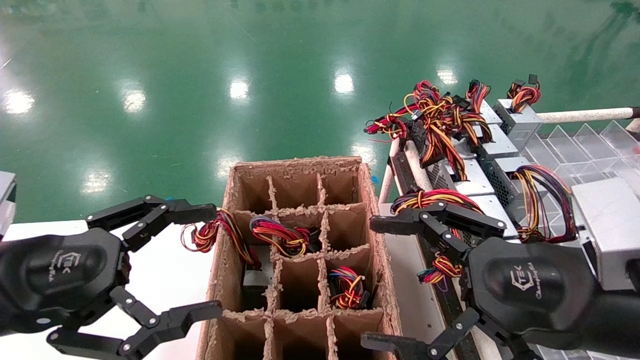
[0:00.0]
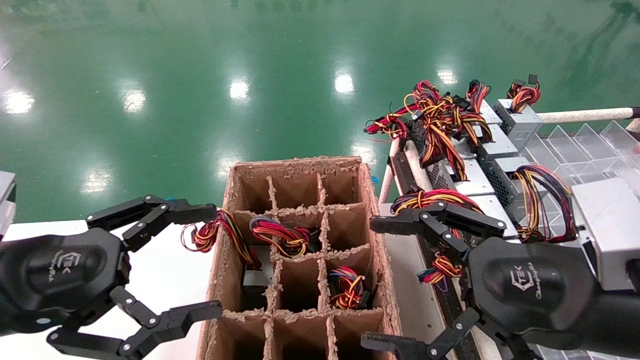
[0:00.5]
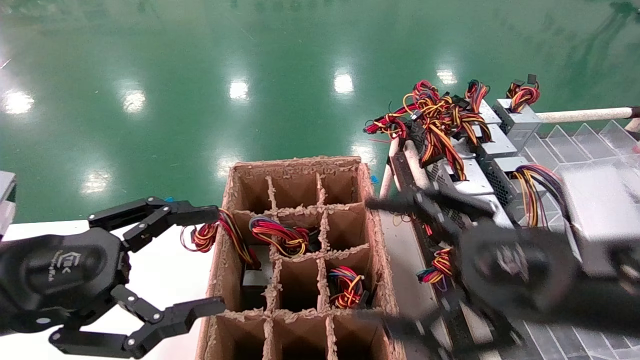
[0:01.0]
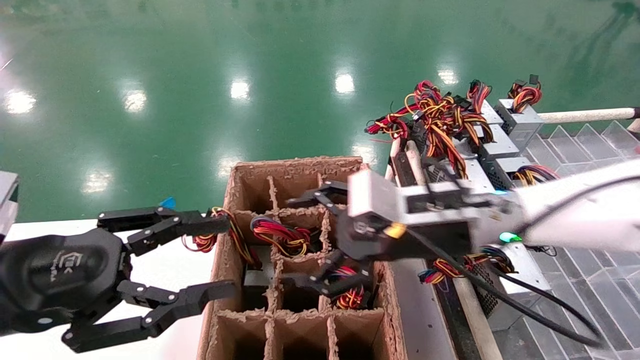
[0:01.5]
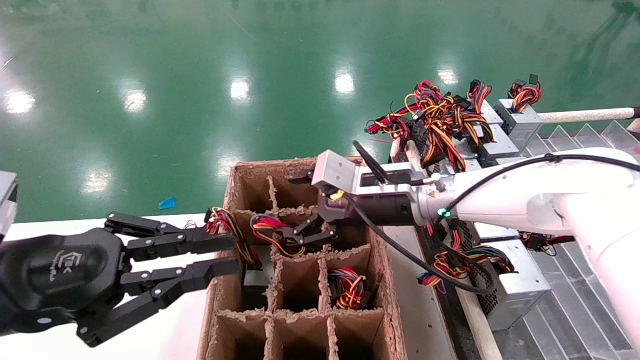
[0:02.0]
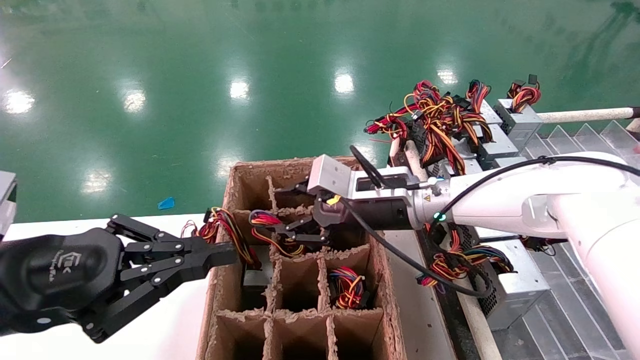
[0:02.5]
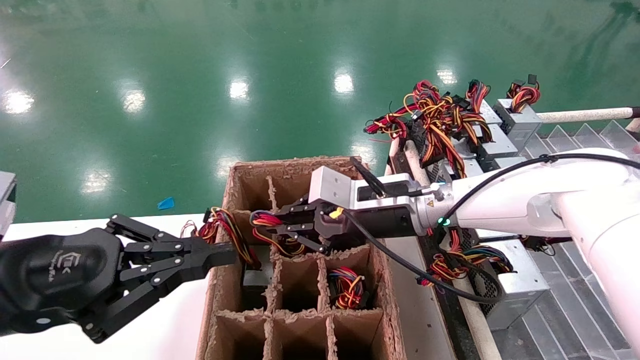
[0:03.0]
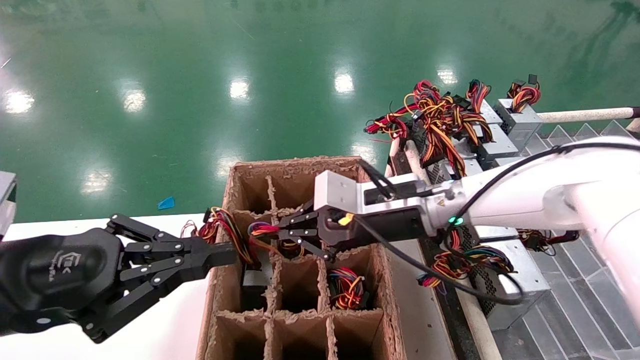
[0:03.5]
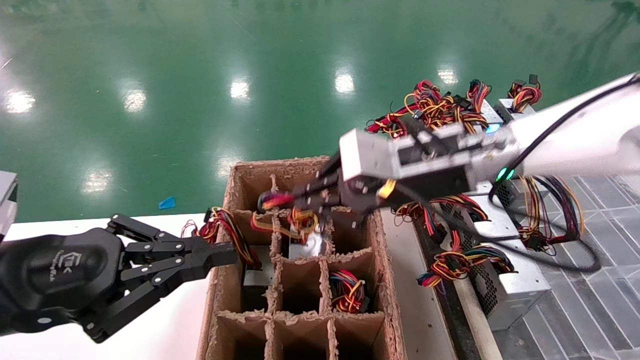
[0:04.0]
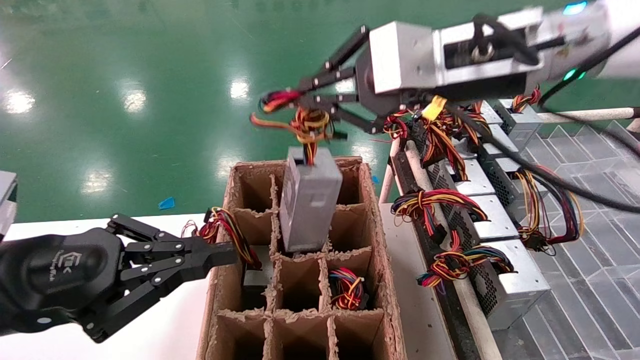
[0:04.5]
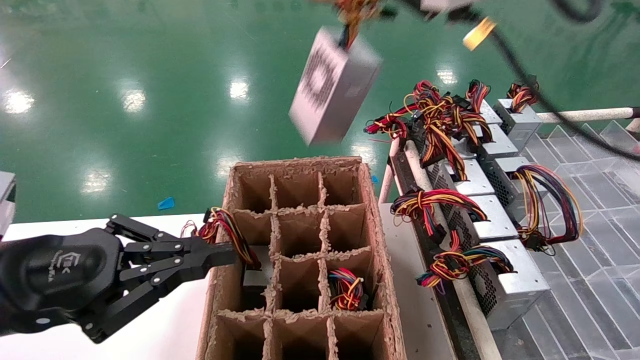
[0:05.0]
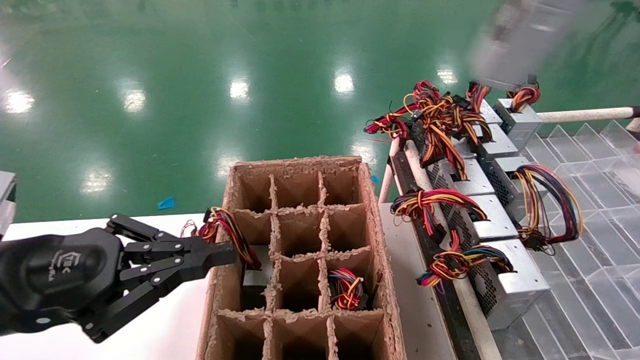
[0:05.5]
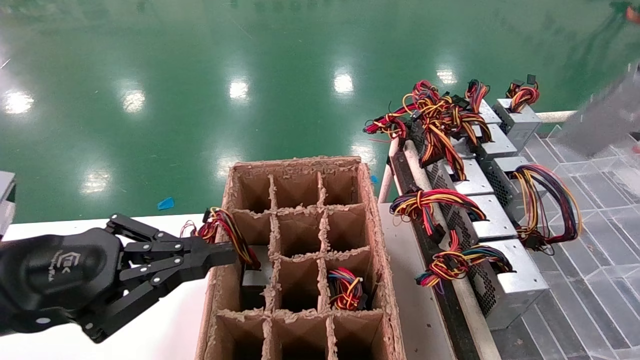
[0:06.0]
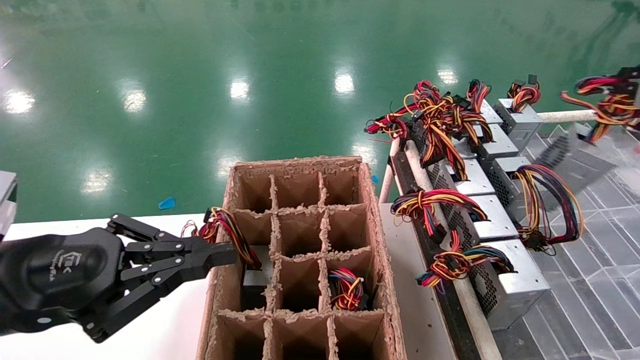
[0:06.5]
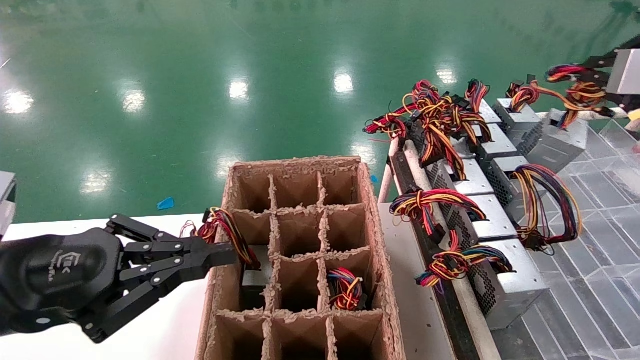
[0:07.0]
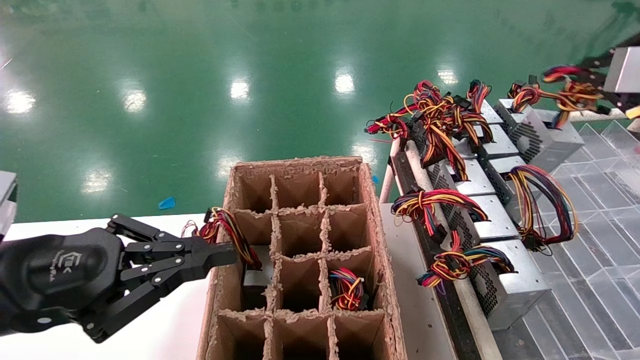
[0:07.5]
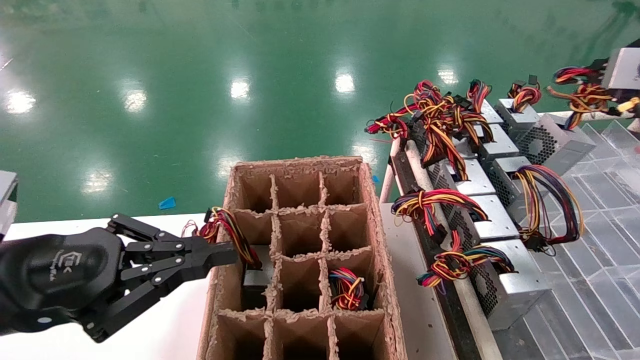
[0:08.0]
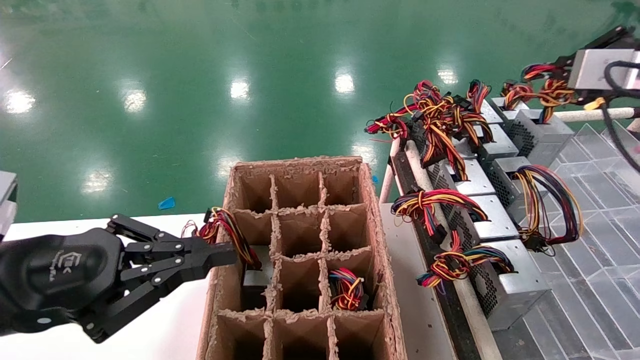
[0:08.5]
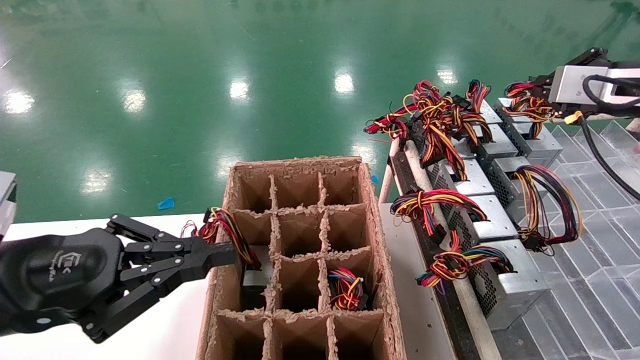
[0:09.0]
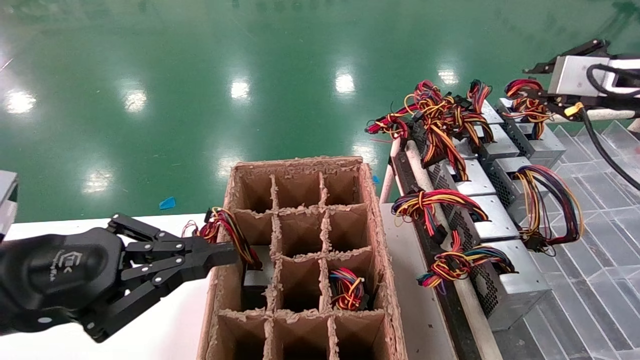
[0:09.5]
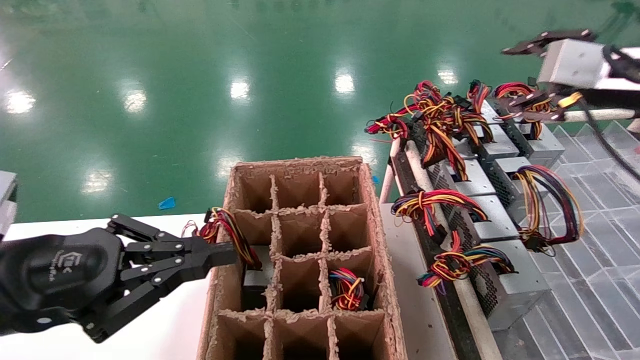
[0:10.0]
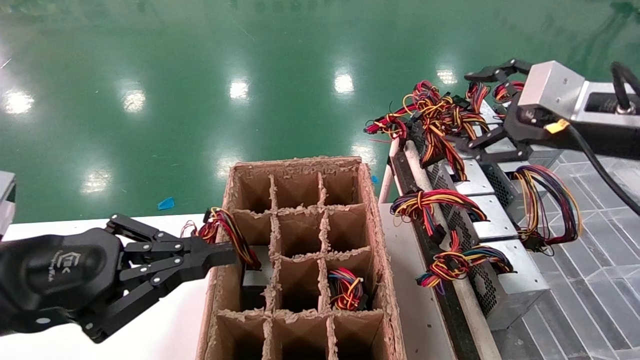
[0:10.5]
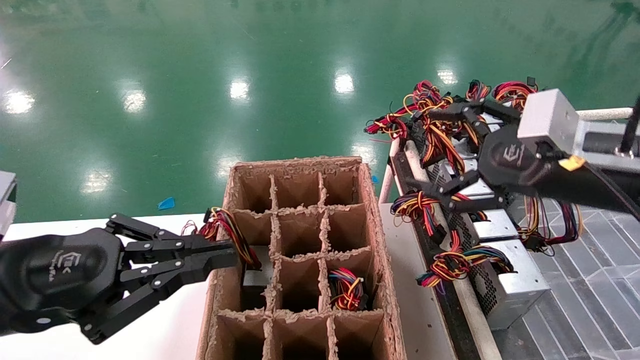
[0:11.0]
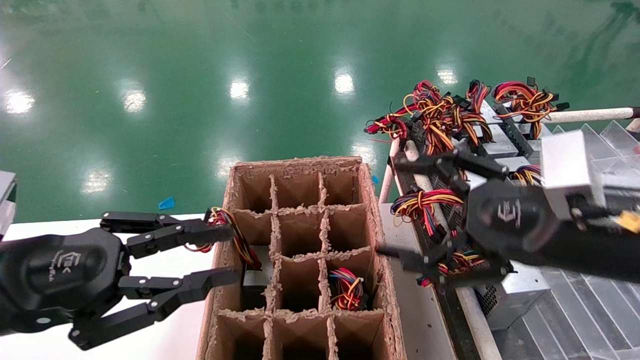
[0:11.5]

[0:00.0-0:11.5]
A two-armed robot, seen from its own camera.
Step, 0:01.5 to 0:03.0: Grab the main unit power supply from the containment box.
Step, 0:03.5 to 0:10.0: Place the main unit power supply in the designated area.
0:00.0 to 0:02.0: The right gripper heads forward and to the left, covering some 25 cm, while the left gripper closes up.
0:02.0 to 0:04.0: The right gripper moves upward and backward, some 10 cm, and closes up.
0:04.0 to 0:06.0: The right gripper moves to the right, upward and backward, about 35 cm.
0:06.0 to 0:07.5: The right gripper shifts about 5 cm forward.
0:07.5 to 0:09.5: The right gripper goes roughly 5 cm forward.
0:09.5 to 0:11.5: The right gripper travels to the left, downward and backward by approximately 25 cm, and opens its fingers.

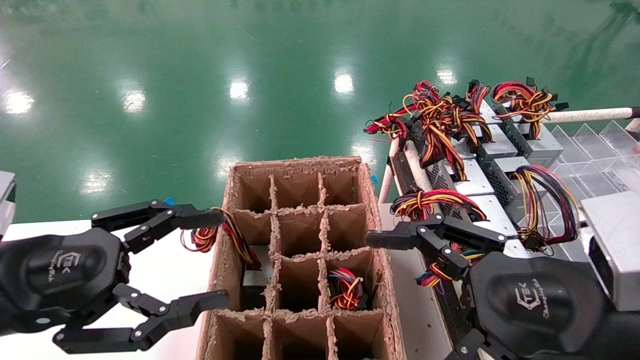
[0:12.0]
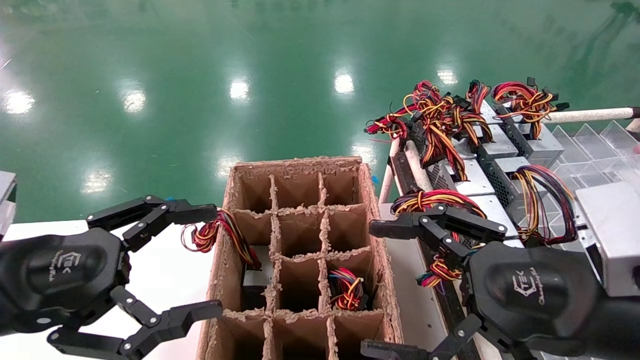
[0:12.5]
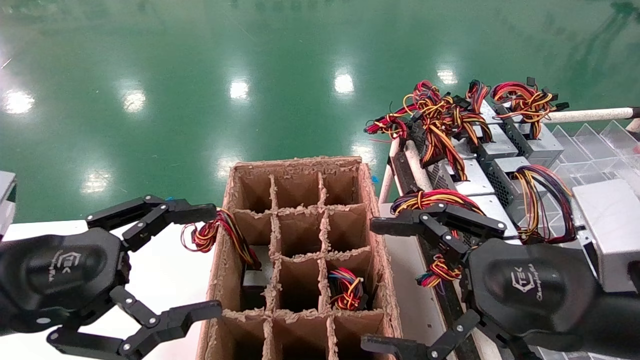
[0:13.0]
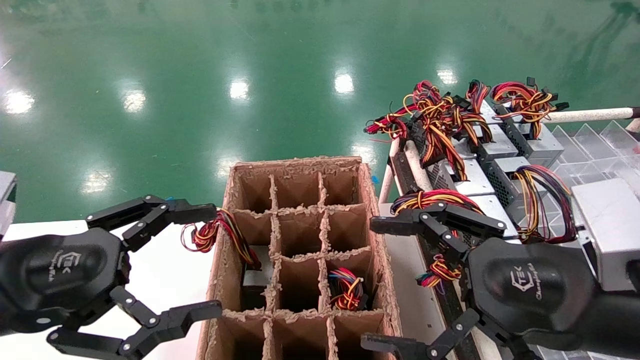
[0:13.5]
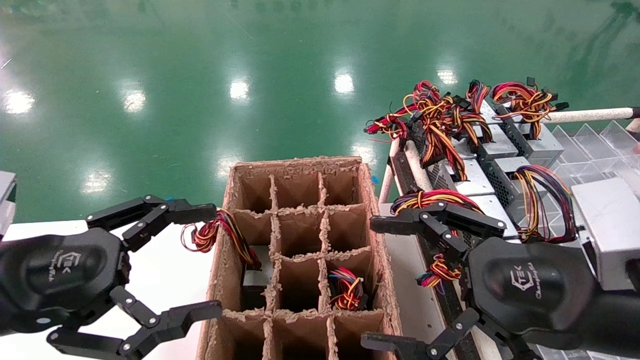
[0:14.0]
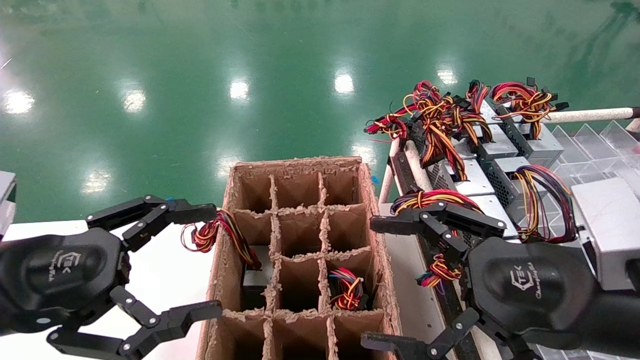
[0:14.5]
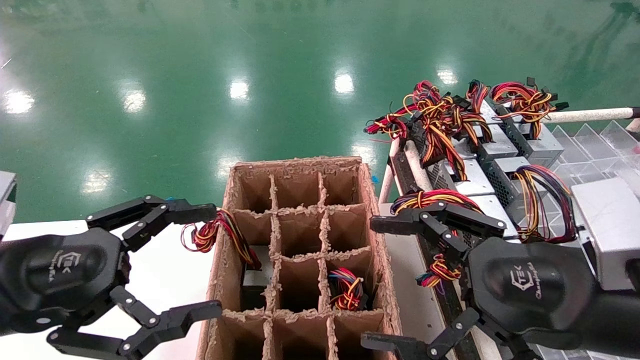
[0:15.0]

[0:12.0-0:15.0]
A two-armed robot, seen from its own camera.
0:12.0 to 0:15.0: Both grippers stay put.
